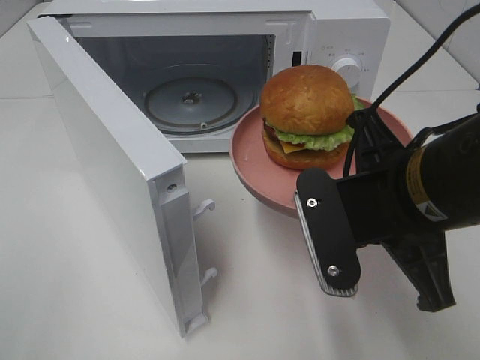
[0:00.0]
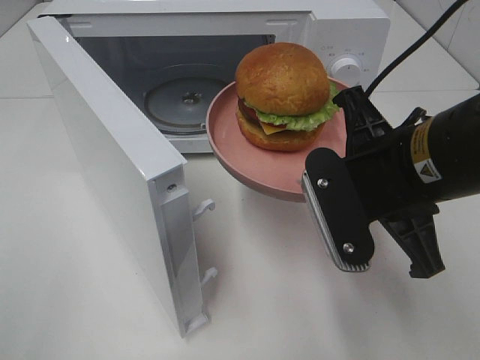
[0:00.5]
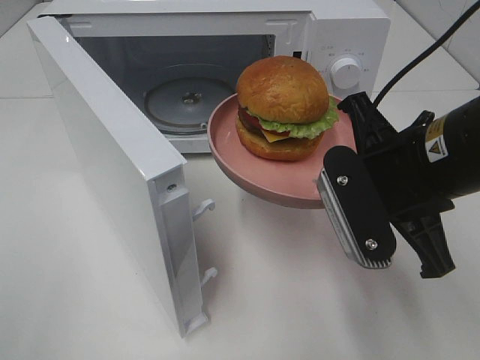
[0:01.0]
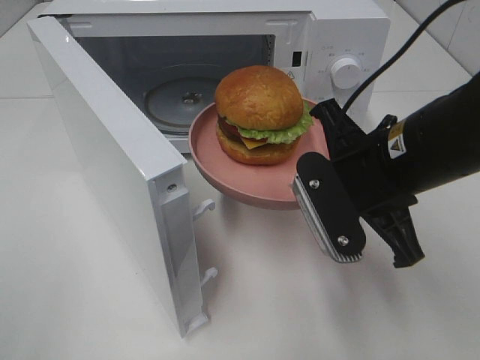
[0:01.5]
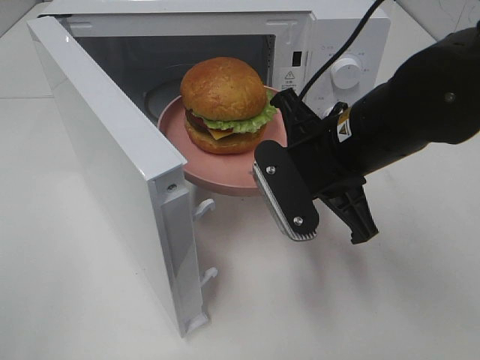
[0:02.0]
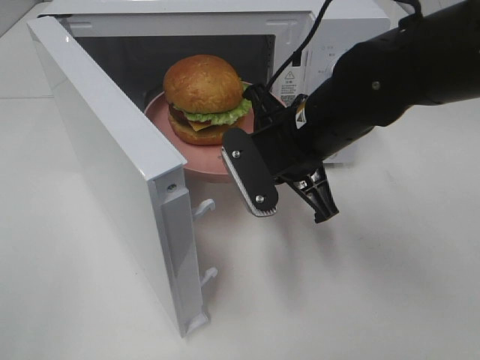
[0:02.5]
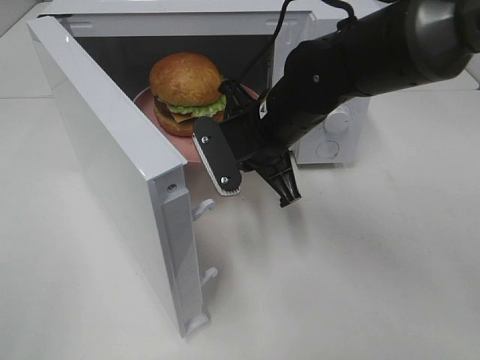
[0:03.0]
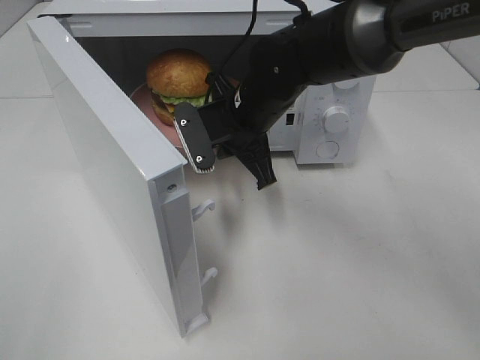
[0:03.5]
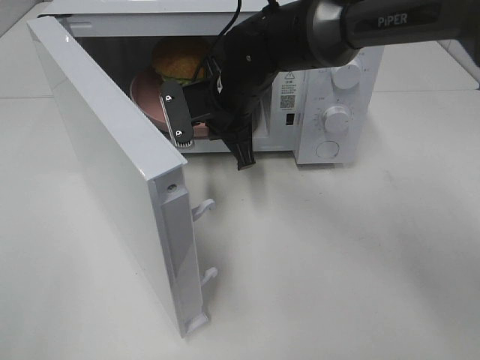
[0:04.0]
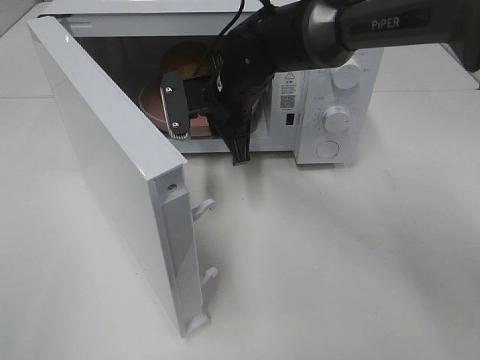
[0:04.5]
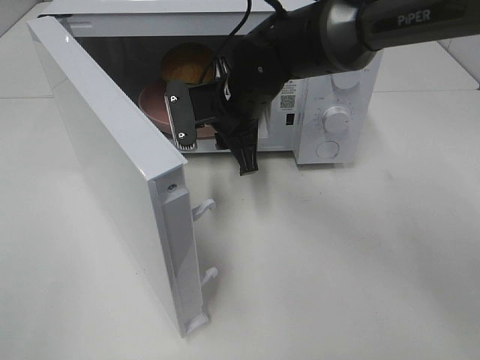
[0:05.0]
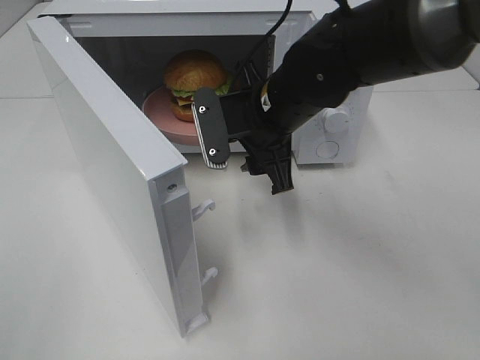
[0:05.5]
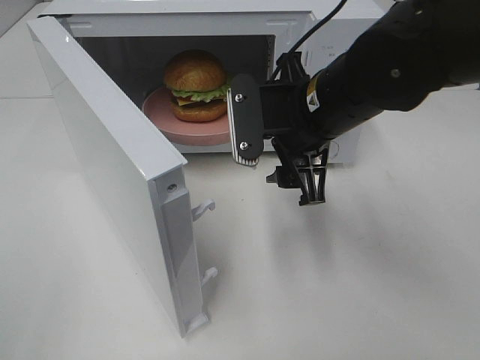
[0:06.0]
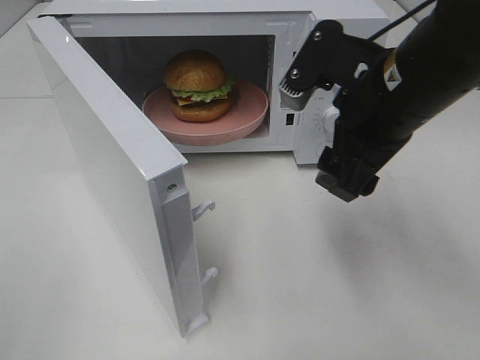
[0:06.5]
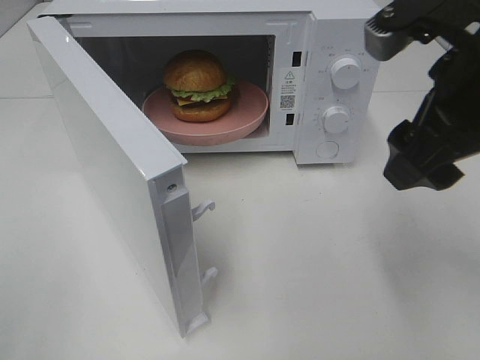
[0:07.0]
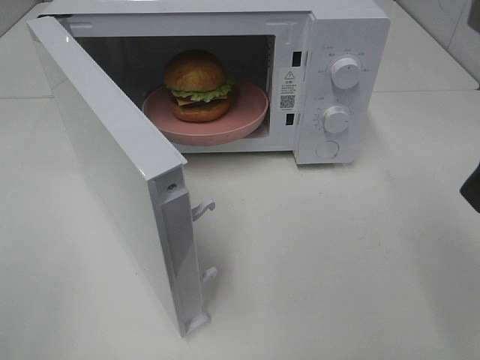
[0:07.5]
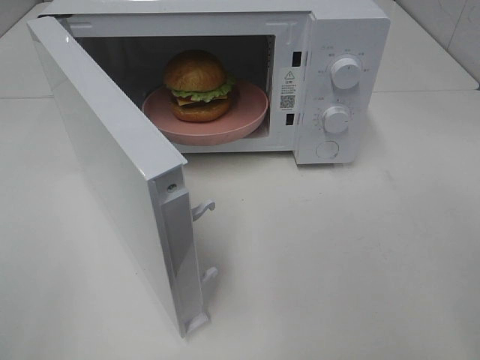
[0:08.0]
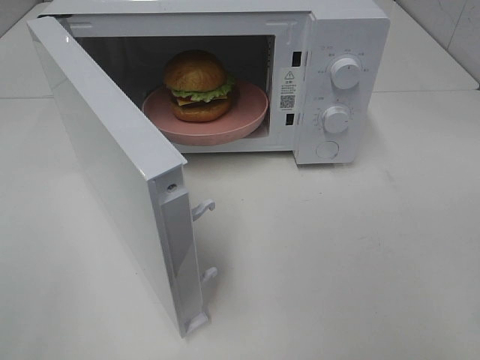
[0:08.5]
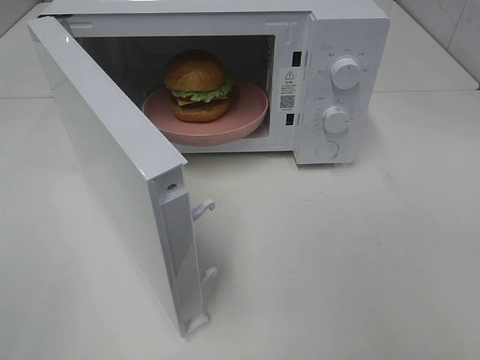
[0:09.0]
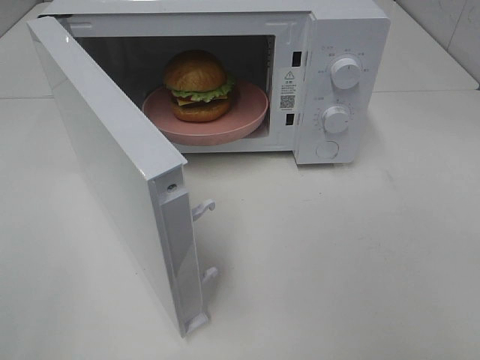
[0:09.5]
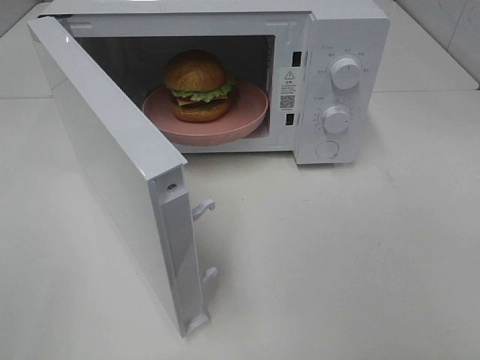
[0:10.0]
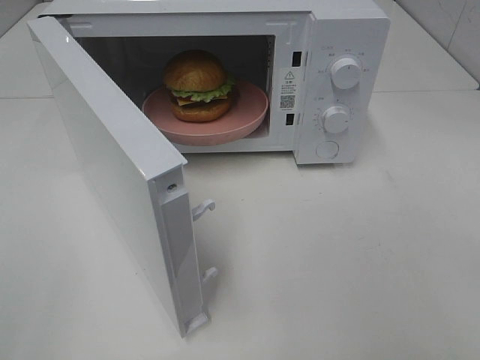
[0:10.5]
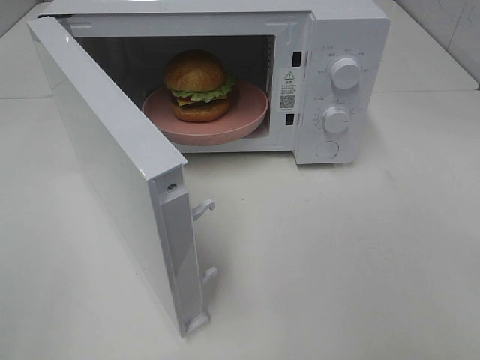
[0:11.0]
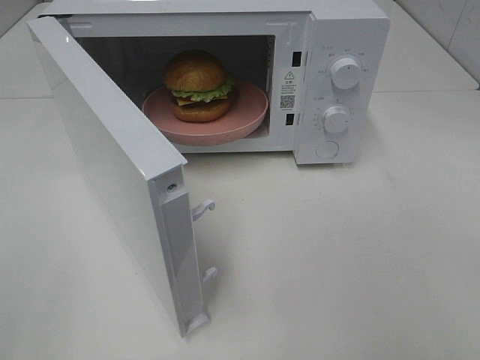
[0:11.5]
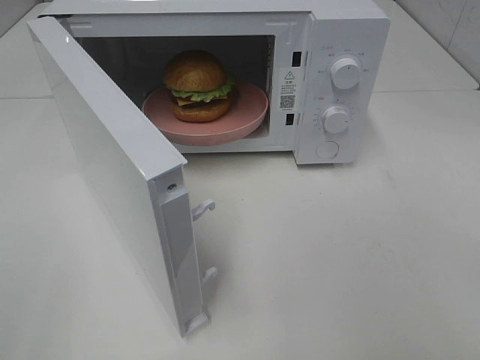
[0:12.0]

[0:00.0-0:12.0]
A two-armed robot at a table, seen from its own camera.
Task of the whole recording: Heat the burger.
Step, 0:00.0 to 0:04.0: Right hand: place the plate in the microwave.
0:00.0 to 0:02.0: The right gripper shifts some 10 cm forward.
0:02.0 to 0:04.0: The right gripper heads forward and to the left, covering approximately 15 cm.
0:04.0 to 0:06.0: The right gripper travels backward and to the right by roughly 15 cm, and opens.
0:06.0 to 0:08.0: The right gripper shifts approximately 25 cm backward, to the right and upward.

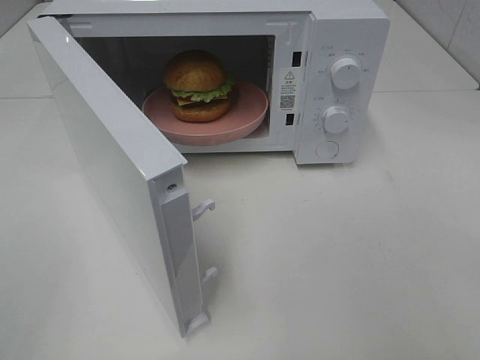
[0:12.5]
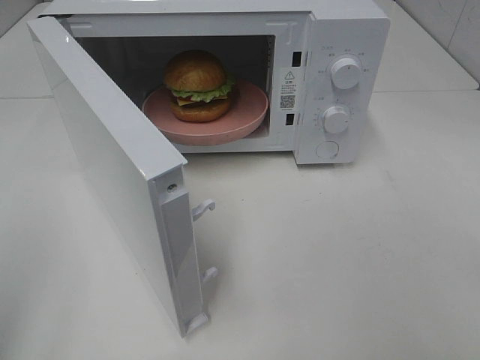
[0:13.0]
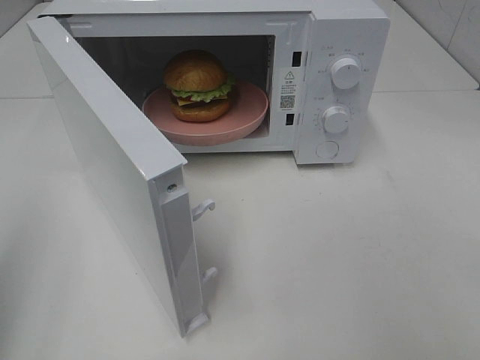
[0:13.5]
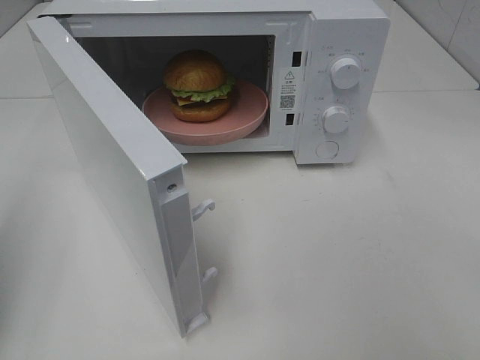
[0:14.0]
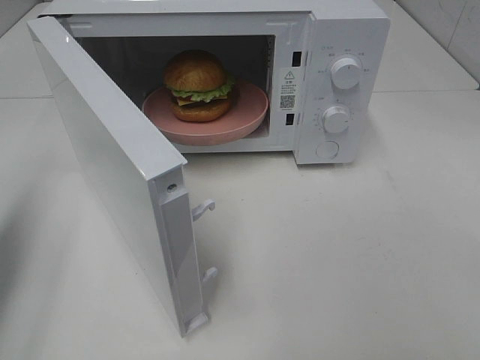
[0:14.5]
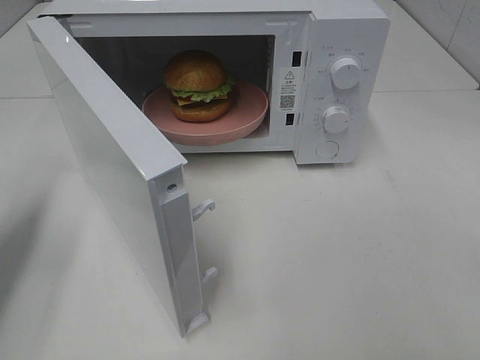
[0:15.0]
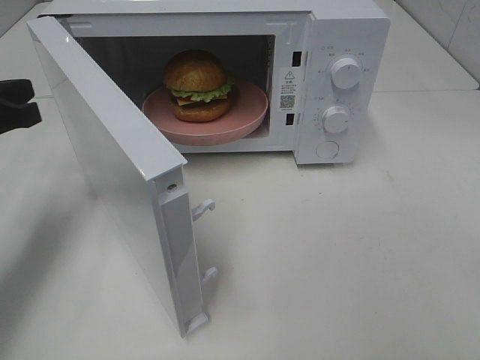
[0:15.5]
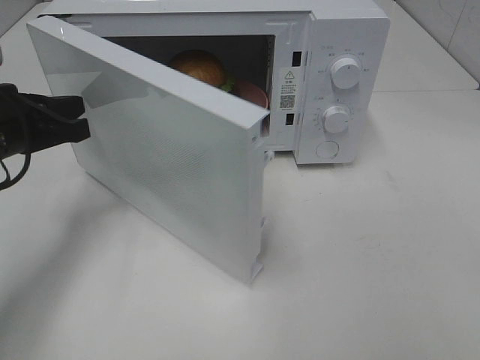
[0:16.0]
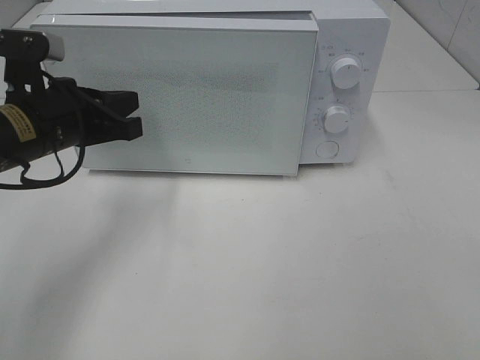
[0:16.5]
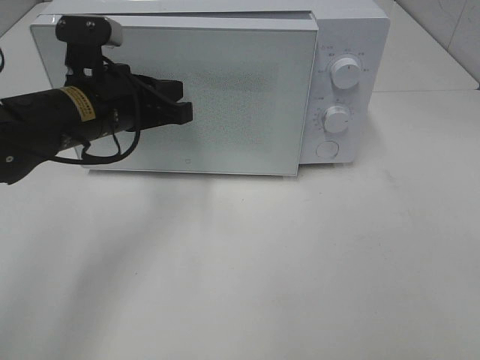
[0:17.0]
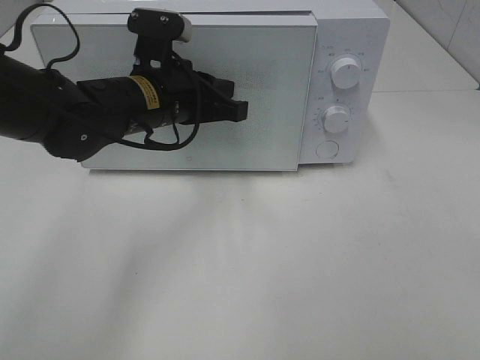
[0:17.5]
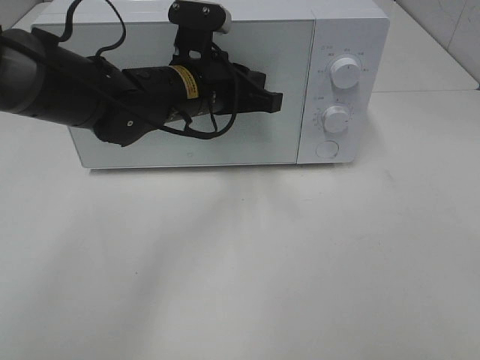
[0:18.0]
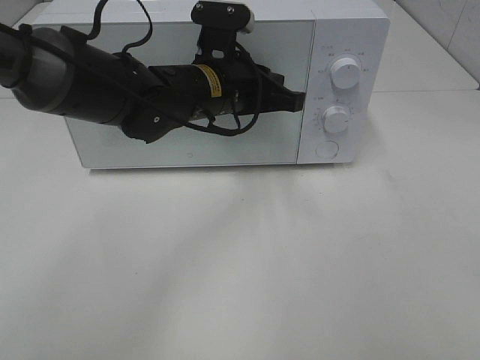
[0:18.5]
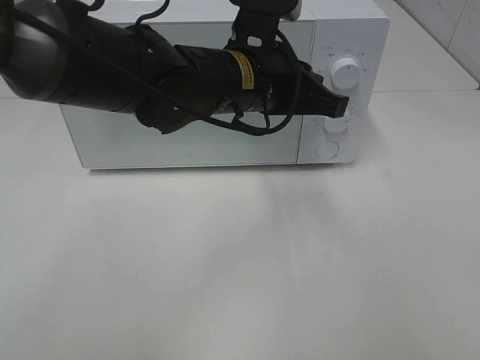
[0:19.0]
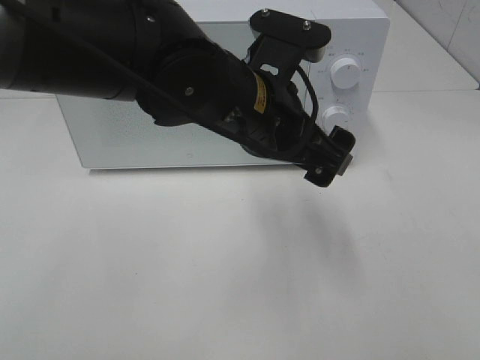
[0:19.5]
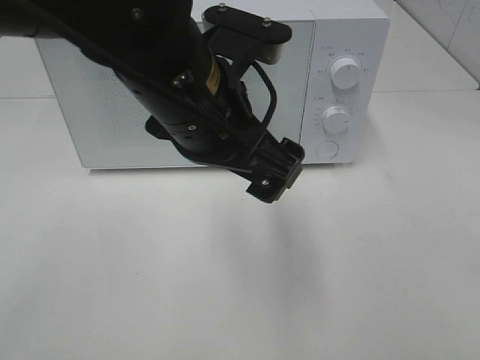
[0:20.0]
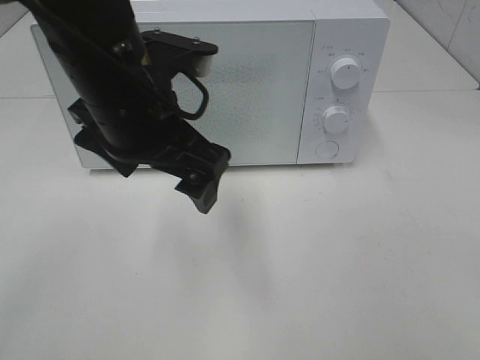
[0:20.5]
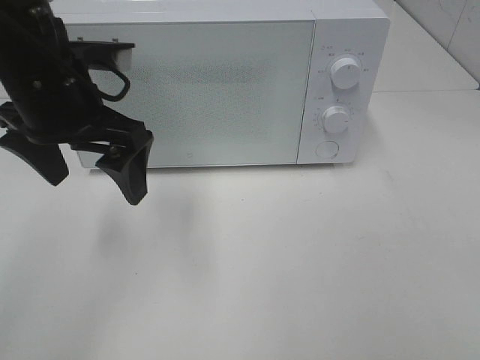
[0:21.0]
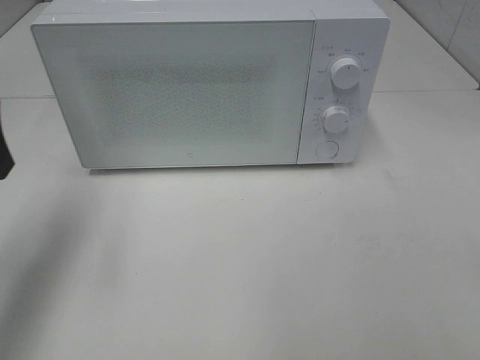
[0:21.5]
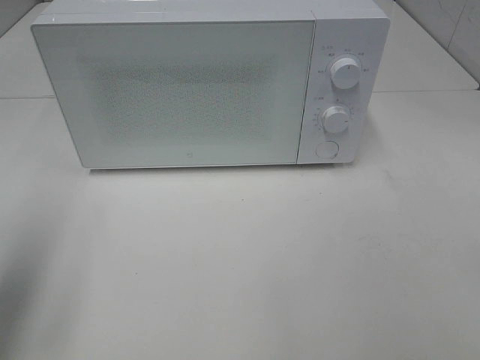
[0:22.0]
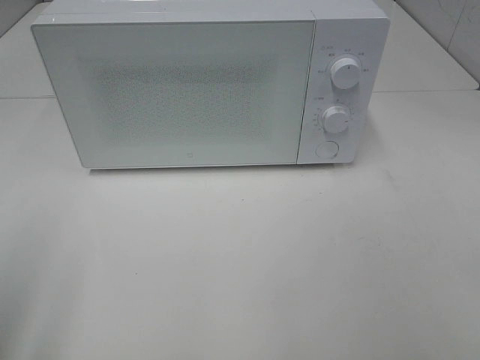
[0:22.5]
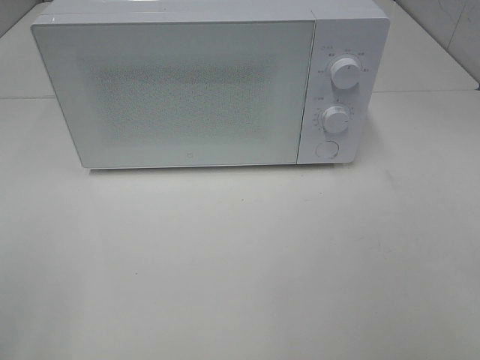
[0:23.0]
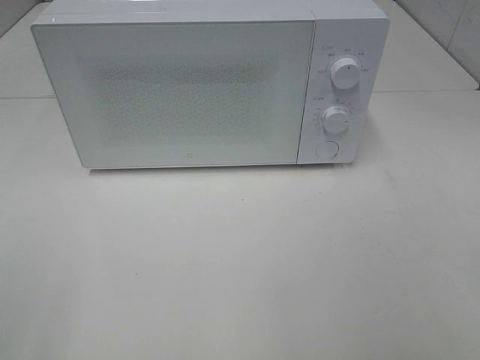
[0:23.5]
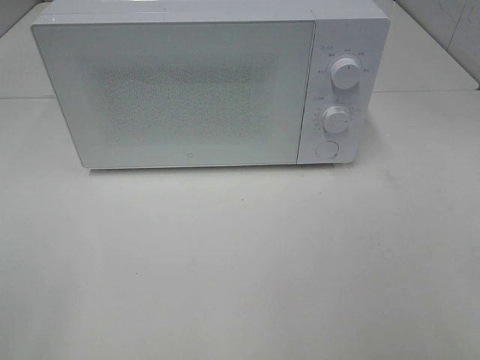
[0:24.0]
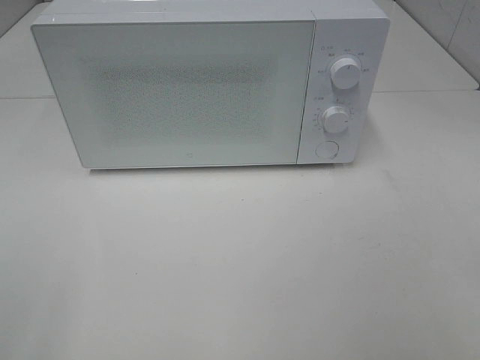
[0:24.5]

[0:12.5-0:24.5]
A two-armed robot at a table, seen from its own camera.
Task of the whole recording: Heat the burger.
Step, 0:12.5 to 0:18.5: Left hand: close the microwave door.
0:12.5 to 0:14.5: The left gripper moves forward, approximately 20 cm, and closes up.
0:14.5 to 0:16.5: The left gripper is displaced to the right, forward and downward by roughly 20 cm.
0:16.5 to 0:18.5: The left gripper shifts some 15 cm to the right.
0:18.5 to 0:20.5: The left gripper shifts some 15 cm backward, upward and to the left, and opens up.
0:20.5 to 0:22.5: The left gripper is displaced to the left and backward by some 30 cm.

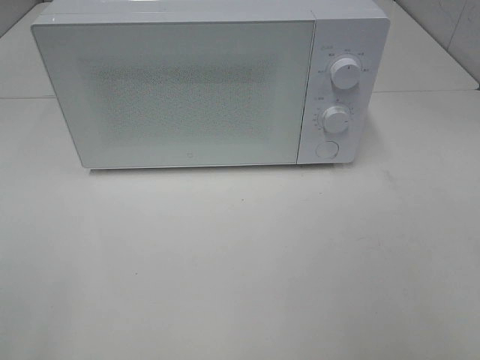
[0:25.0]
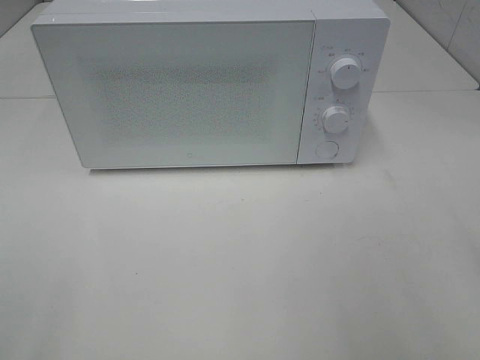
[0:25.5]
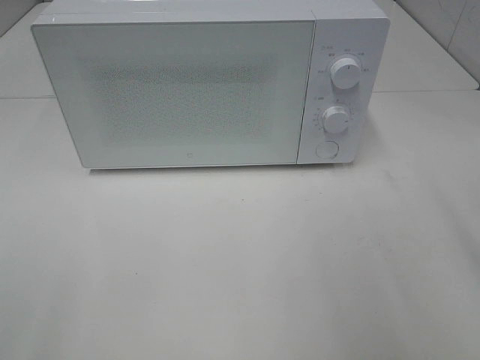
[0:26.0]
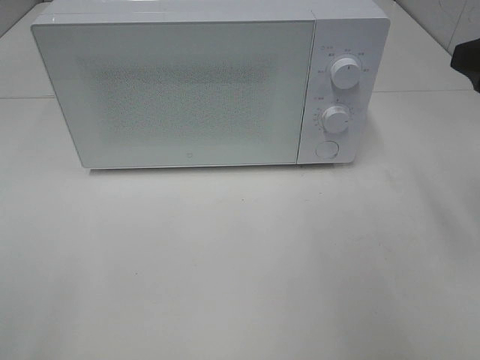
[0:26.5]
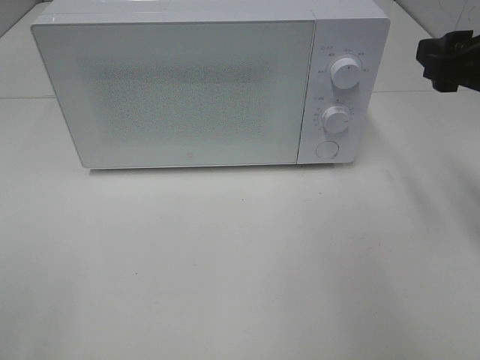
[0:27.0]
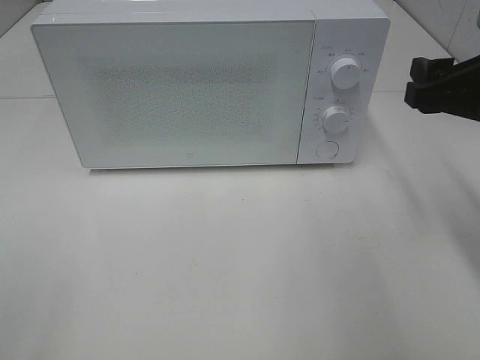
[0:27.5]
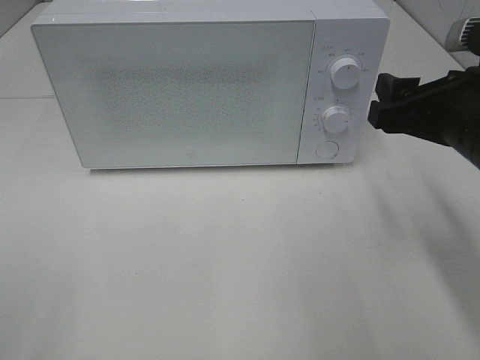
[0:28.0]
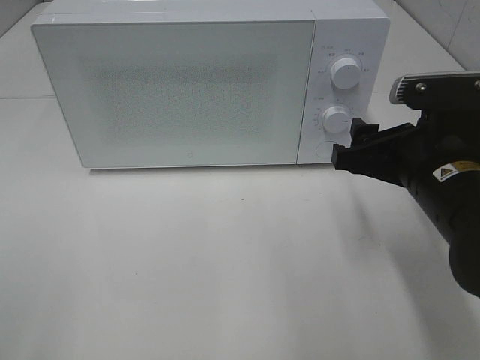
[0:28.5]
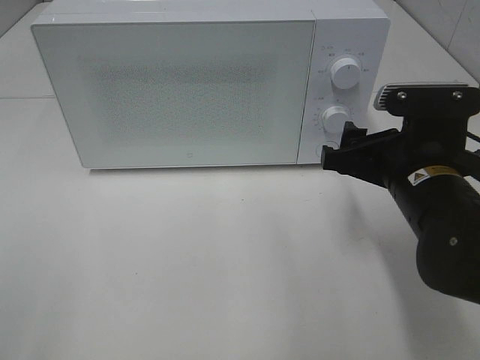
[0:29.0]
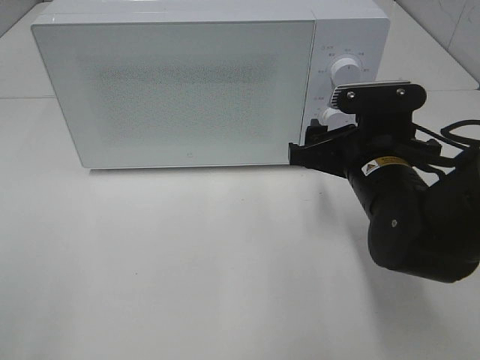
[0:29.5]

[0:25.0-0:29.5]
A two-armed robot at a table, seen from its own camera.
Task of the whole recording: Heat the burger.
0:25.0 to 0:27.0: The right gripper heads forward, covering approximately 20 cm.
0:27.0 to 0:29.5: The right gripper is displaced to the left and downward by about 15 cm.
